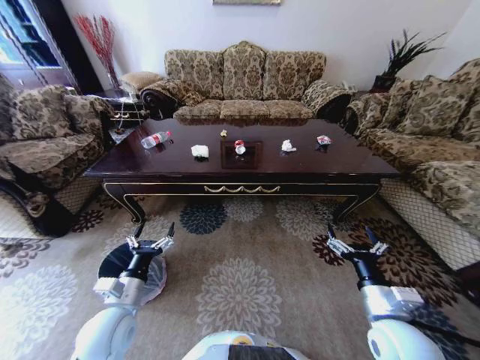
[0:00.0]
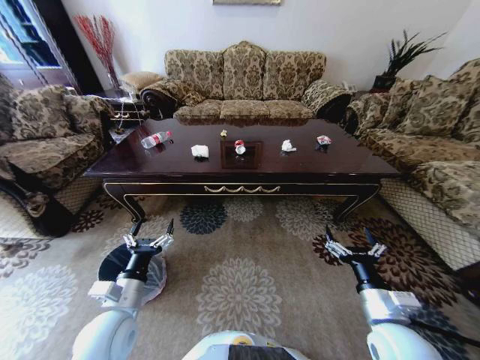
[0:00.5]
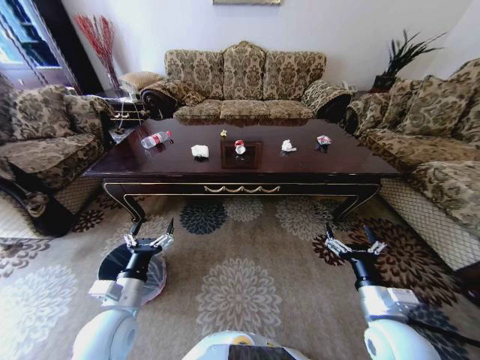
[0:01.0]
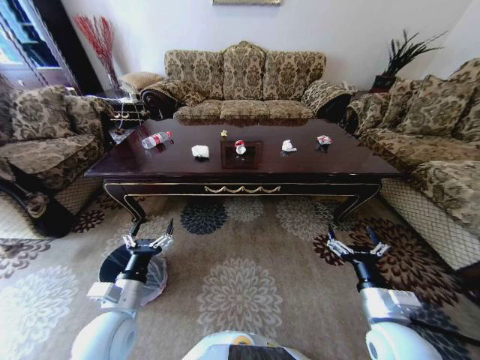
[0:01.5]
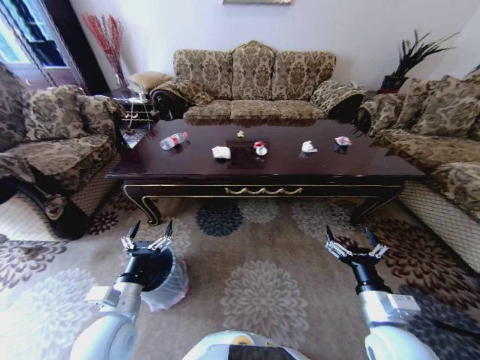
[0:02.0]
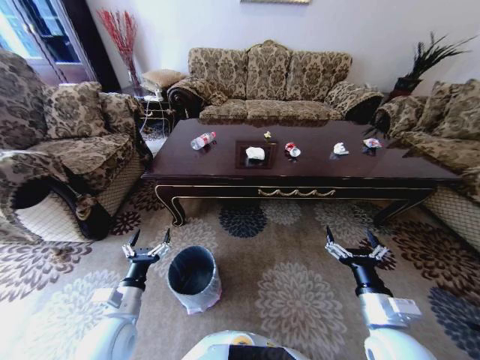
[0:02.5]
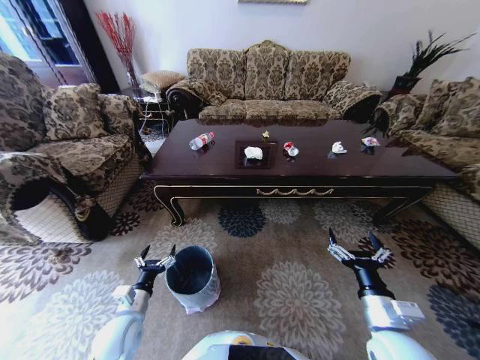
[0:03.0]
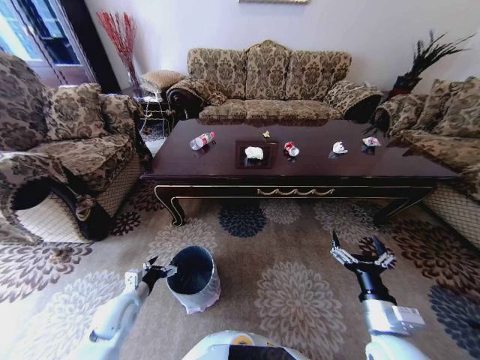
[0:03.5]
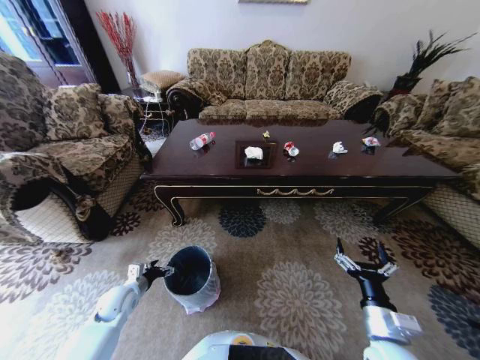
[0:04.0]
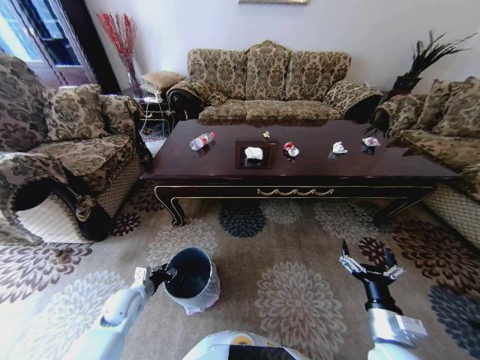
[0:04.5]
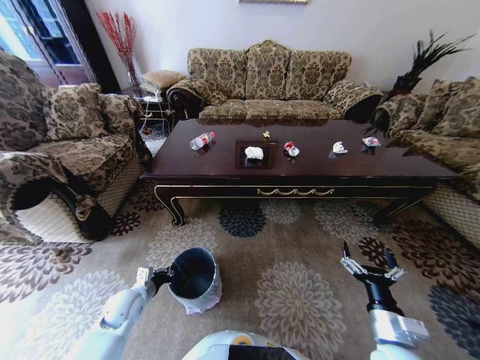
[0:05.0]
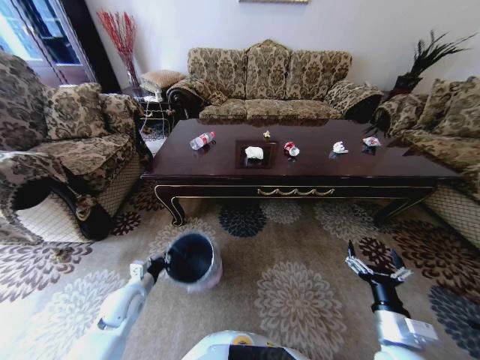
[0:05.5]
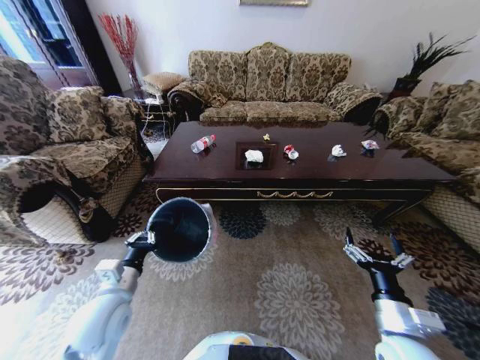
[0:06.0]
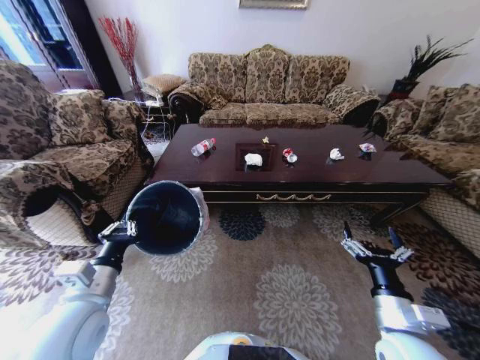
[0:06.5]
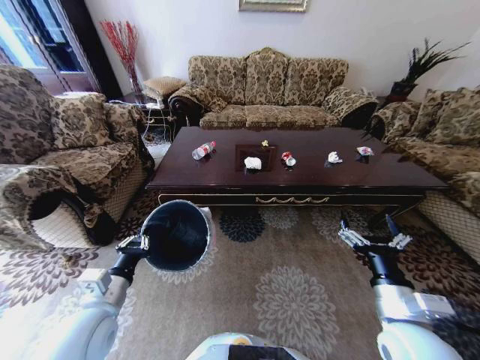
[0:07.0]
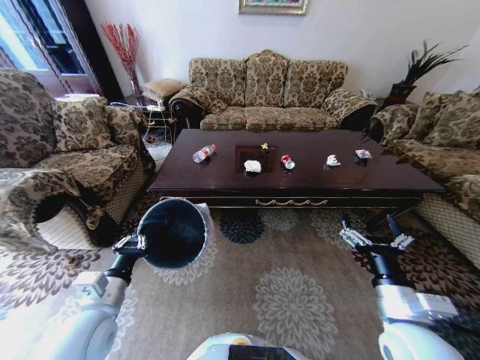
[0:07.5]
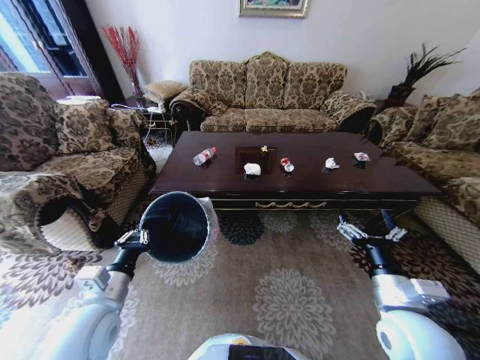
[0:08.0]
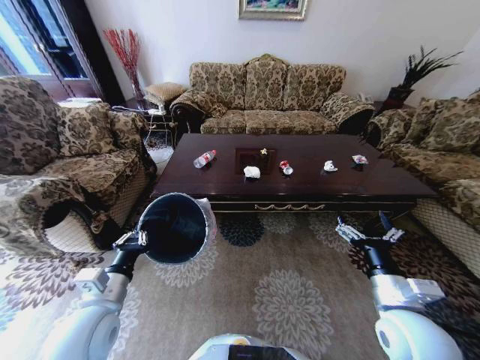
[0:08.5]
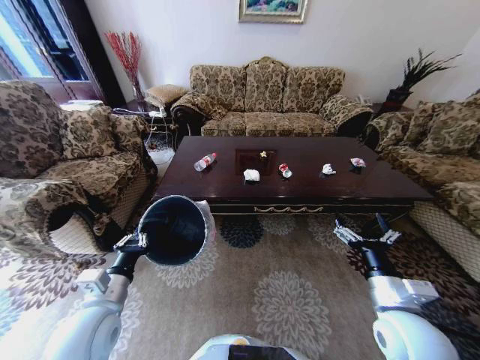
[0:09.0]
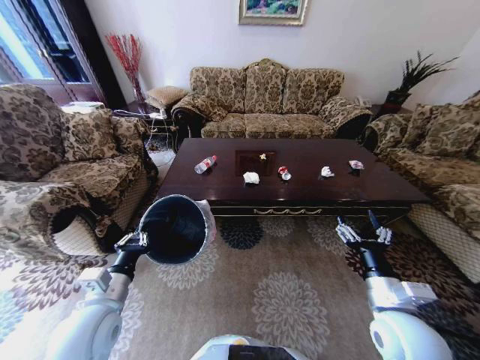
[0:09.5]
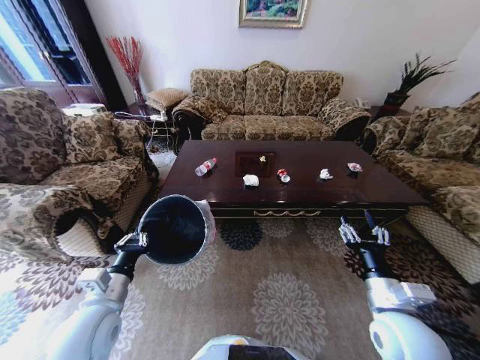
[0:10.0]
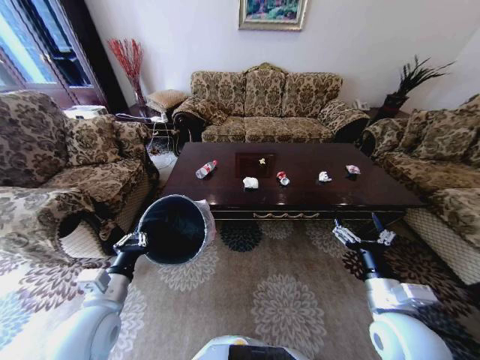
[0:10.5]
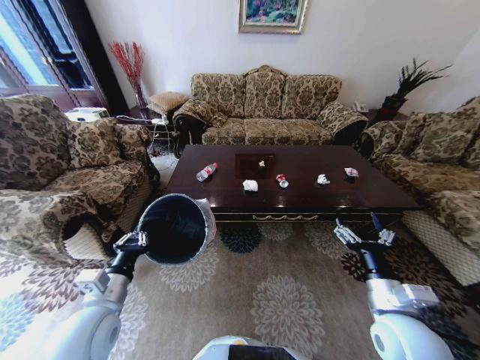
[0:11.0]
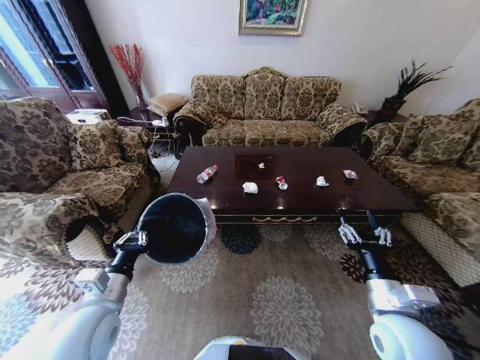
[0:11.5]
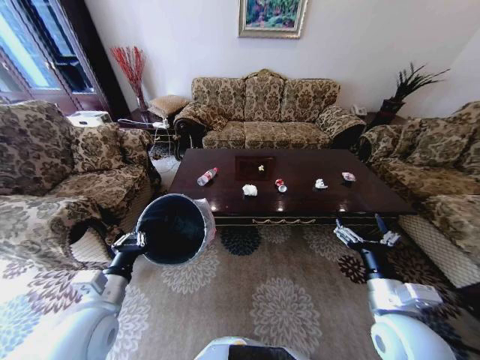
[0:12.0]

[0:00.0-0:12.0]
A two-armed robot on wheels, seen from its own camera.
Task of the whole recording: Move to the front of the table and place the trash on the table into the trash bin.
0:02.0 to 0:04.0: The left gripper goes some 20 cm downward, to the left and forward. Meanwhile the right gripper moves roughly 5 cm.
0:04.0 to 0:06.0: The left gripper goes about 20 cm upward, to the right and backward, and closes up.
0:06.0 to 0:08.0: The right gripper moves upward, some 5 cm.
0:08.0 to 0:10.0: The right gripper closes.
0:10.0 to 0:12.0: The right gripper opens.

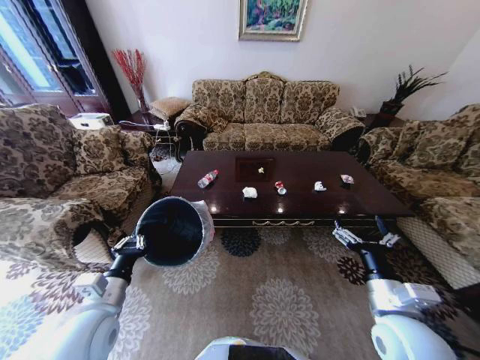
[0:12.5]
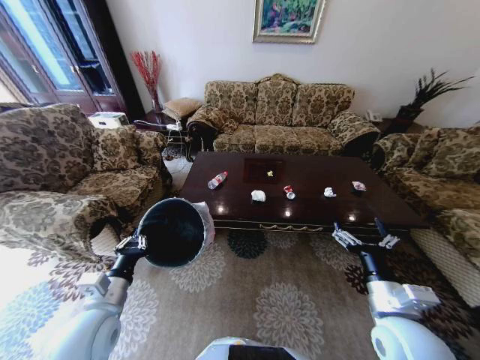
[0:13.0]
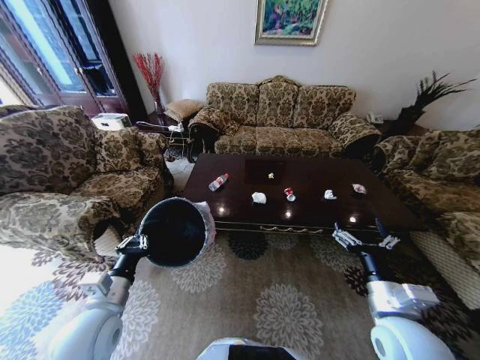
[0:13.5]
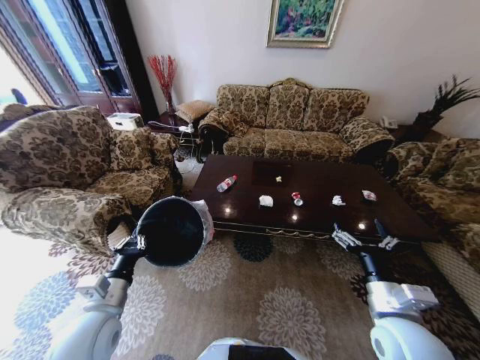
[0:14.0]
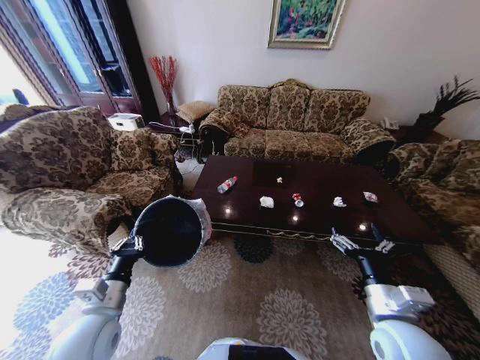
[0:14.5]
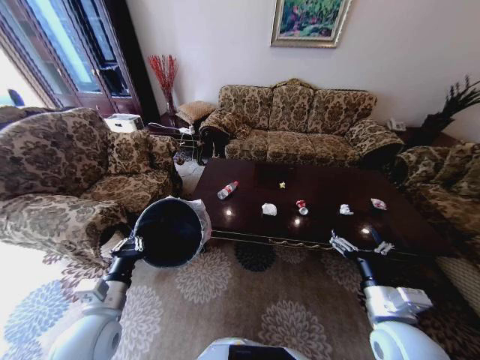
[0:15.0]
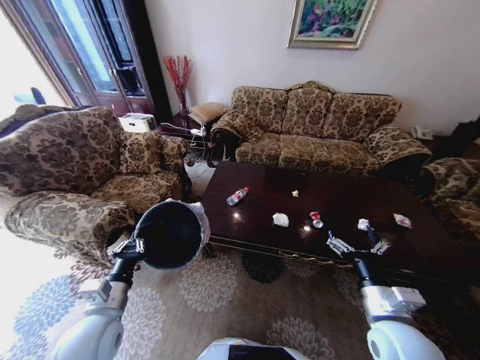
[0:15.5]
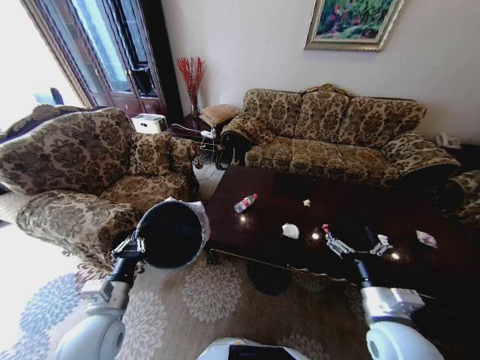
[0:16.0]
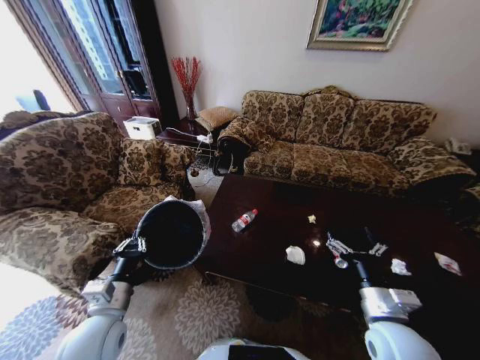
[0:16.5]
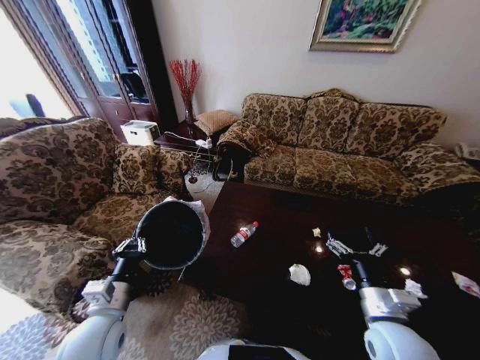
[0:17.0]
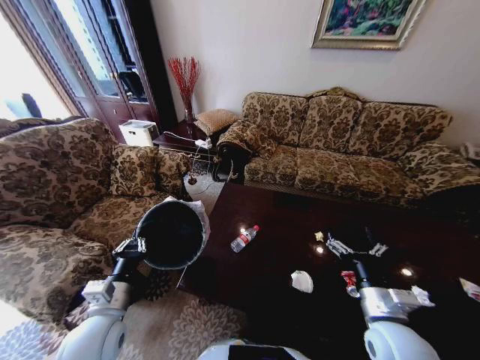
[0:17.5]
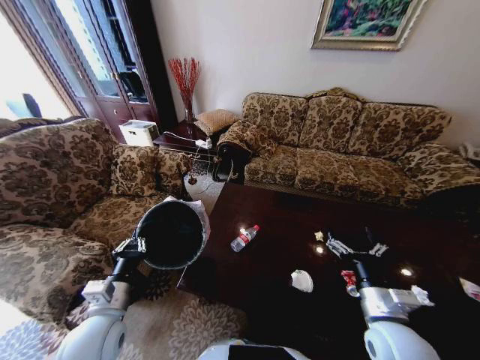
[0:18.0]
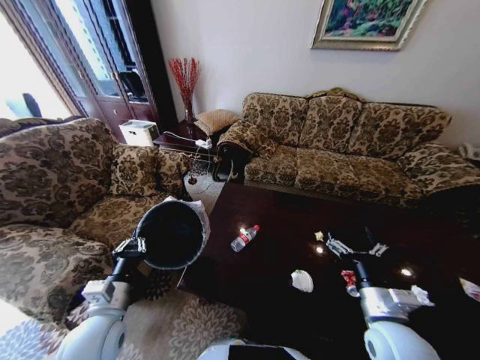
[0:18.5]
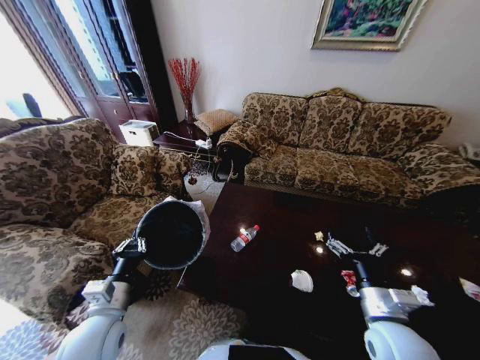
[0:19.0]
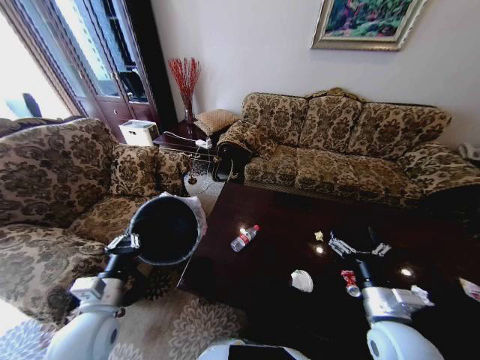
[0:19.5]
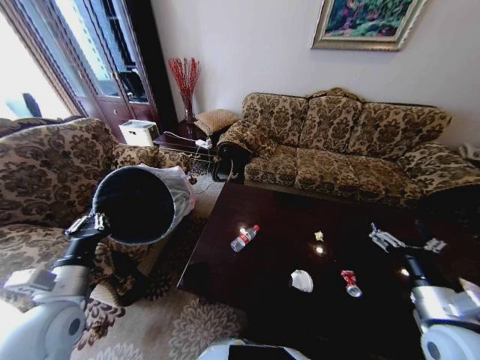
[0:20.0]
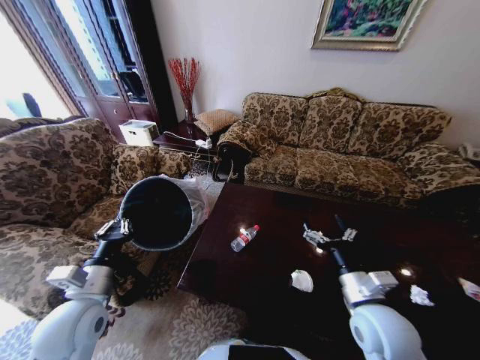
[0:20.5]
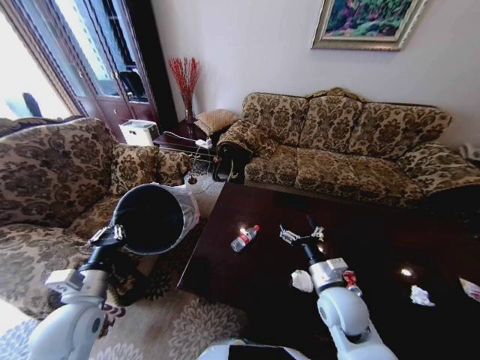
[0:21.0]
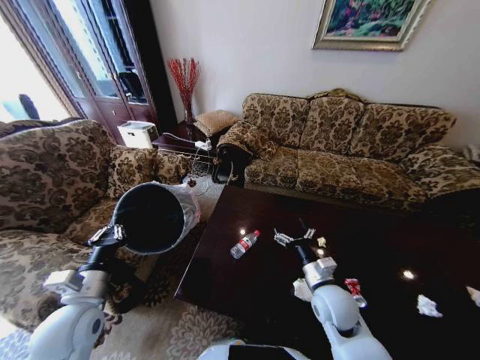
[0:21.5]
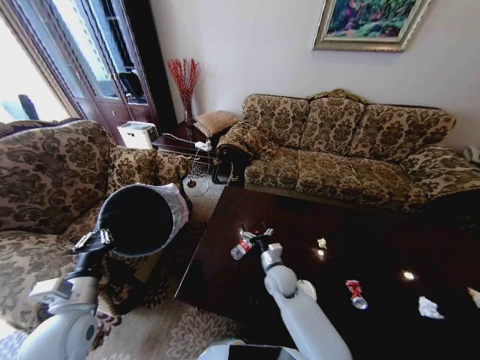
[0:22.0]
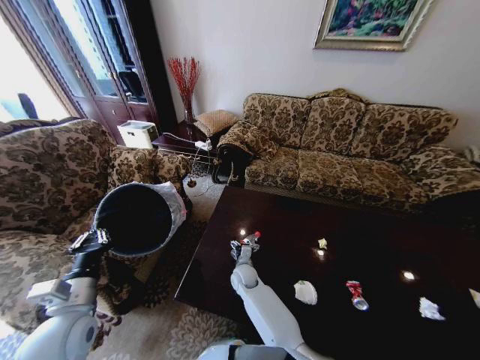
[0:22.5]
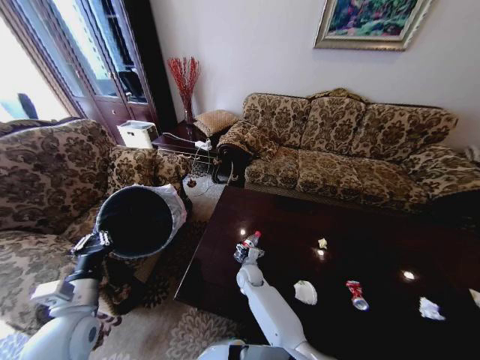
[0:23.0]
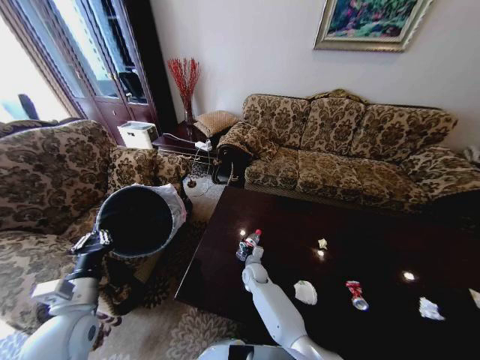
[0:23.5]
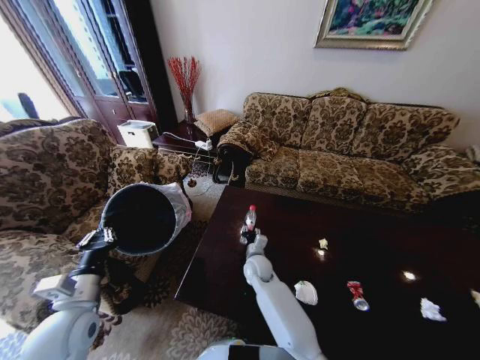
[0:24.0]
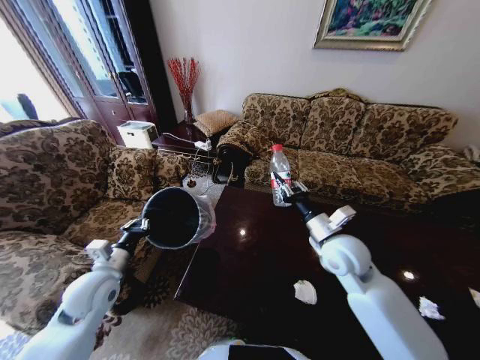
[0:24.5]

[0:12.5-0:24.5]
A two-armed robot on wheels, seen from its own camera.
Task of the whole recording: Move to the front of the table and place the trash on the table into the trash bin.
0:18.5 to 0:20.5: The right gripper travels to the right and back again, some 5 cm each way.
0:20.5 to 0:22.5: The right gripper moves to the left, downward and forward, roughly 40 cm.
0:22.5 to 0:24.5: The left gripper shifts approximately 10 cm forward, while the right gripper goes about 35 cm upward and to the right, and closes.

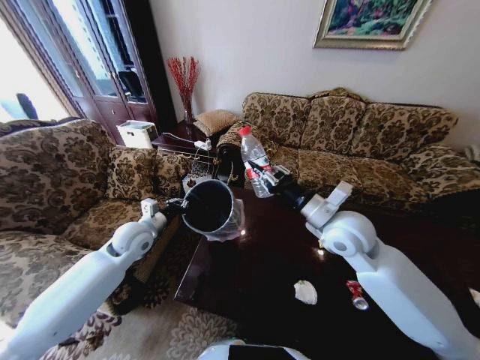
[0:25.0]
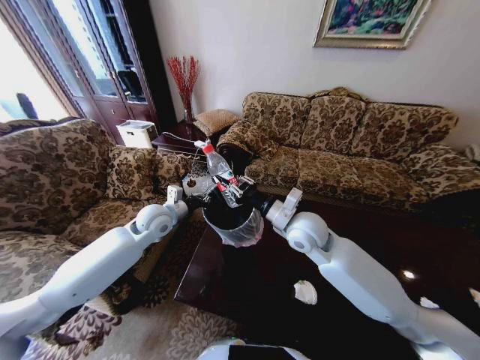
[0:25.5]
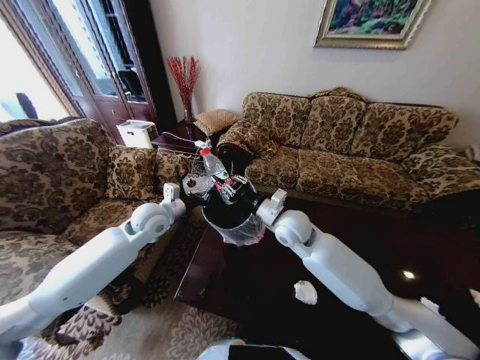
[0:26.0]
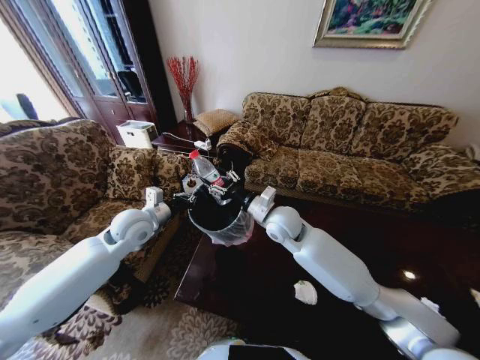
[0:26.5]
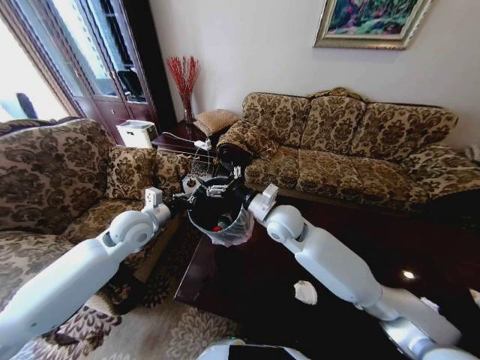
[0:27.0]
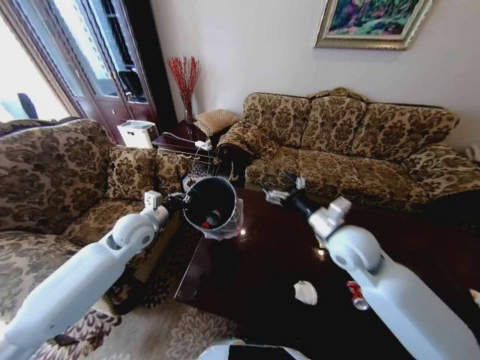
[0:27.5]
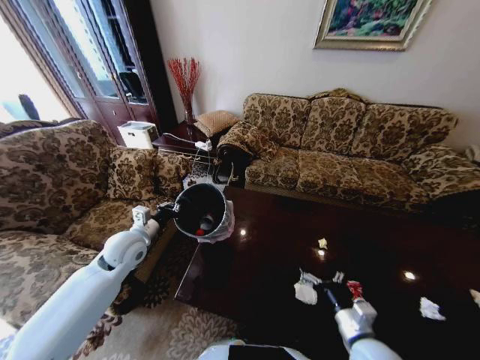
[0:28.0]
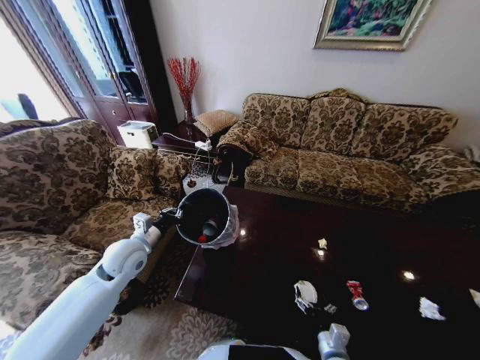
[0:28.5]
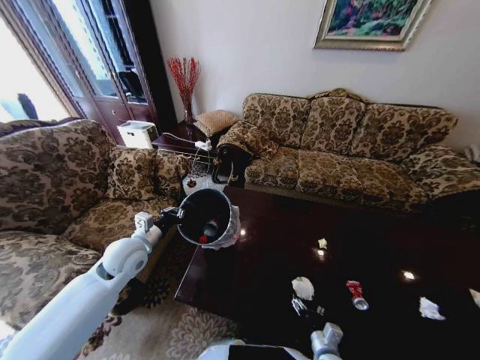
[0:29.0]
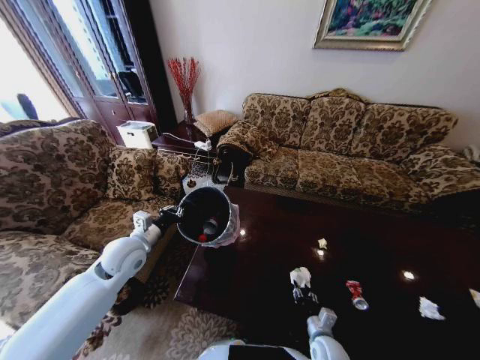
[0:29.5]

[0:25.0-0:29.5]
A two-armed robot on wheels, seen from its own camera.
Task of the whole recording: Move to the front of the table and place the trash on the table into the trash bin.
0:25.0 to 0:27.0: The left gripper moves upward, some 5 cm. Meanwhile the right gripper travels to the left and forward by approximately 15 cm, and opens.
0:27.0 to 0:29.5: The left gripper moves downward, approximately 5 cm, while the right gripper travels downward, backward and to the right by about 40 cm, and closes its fingers.
